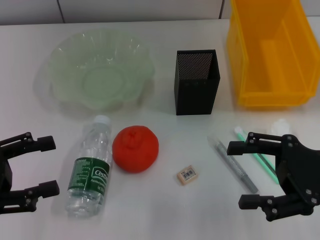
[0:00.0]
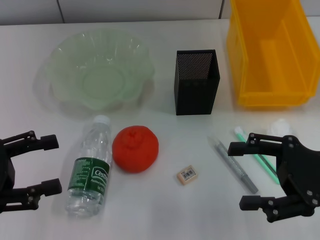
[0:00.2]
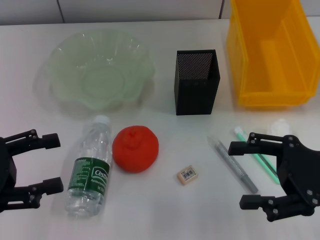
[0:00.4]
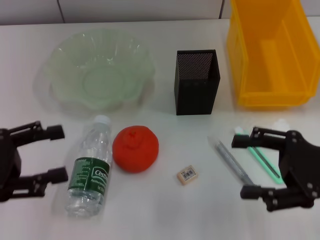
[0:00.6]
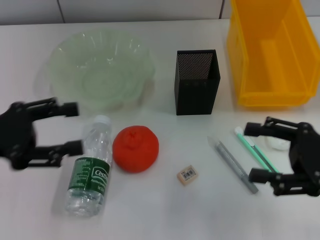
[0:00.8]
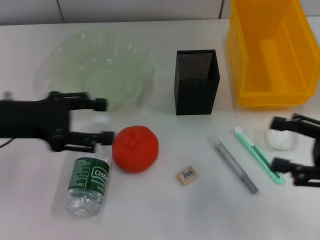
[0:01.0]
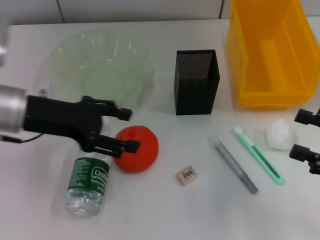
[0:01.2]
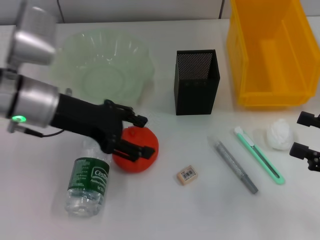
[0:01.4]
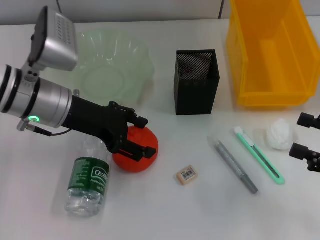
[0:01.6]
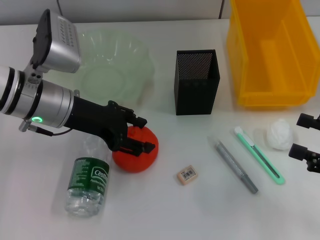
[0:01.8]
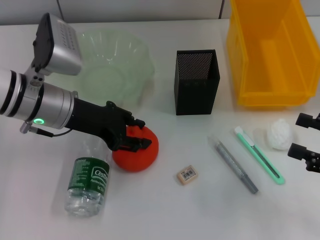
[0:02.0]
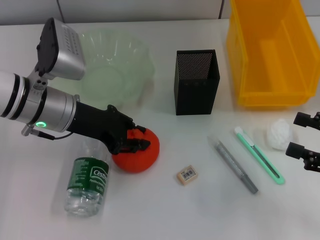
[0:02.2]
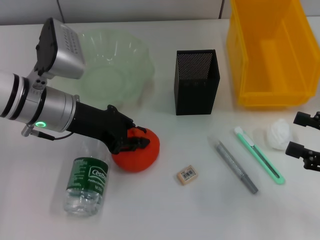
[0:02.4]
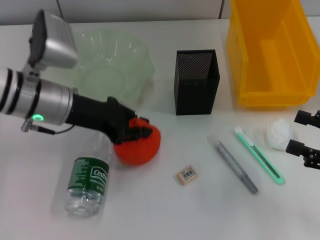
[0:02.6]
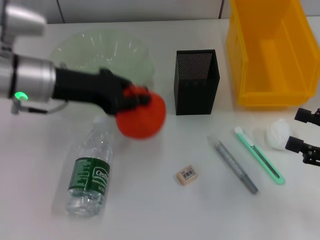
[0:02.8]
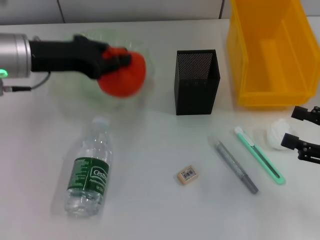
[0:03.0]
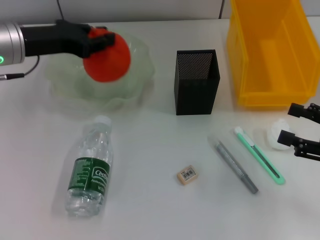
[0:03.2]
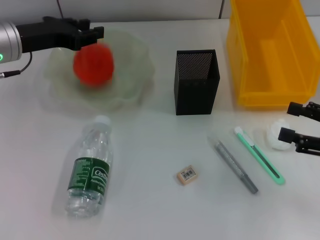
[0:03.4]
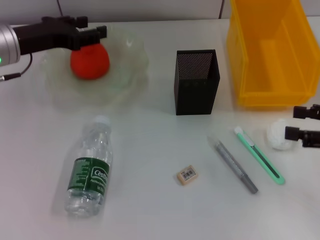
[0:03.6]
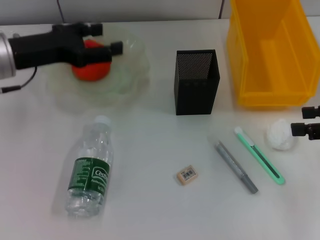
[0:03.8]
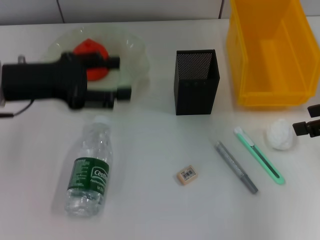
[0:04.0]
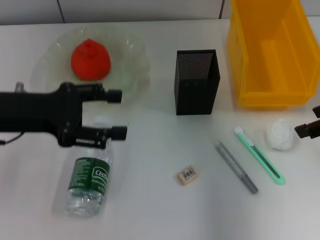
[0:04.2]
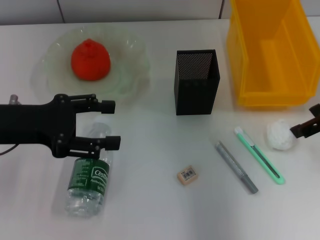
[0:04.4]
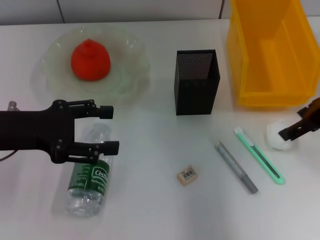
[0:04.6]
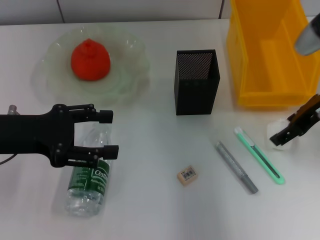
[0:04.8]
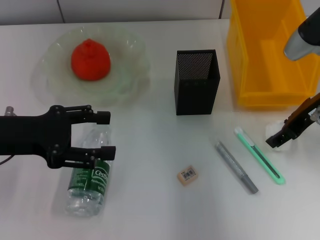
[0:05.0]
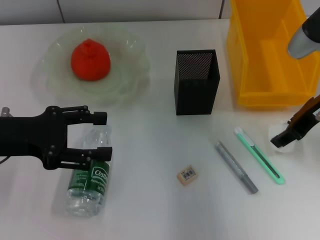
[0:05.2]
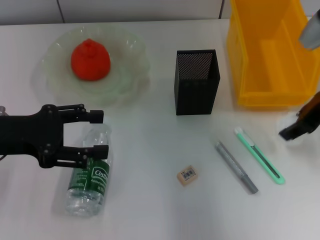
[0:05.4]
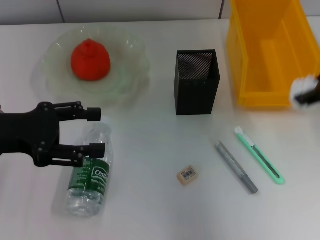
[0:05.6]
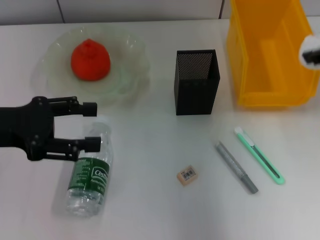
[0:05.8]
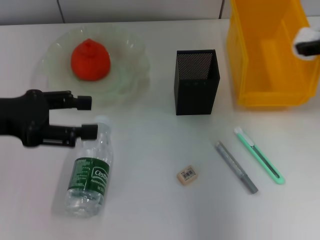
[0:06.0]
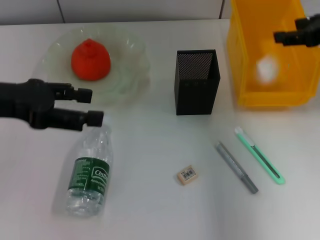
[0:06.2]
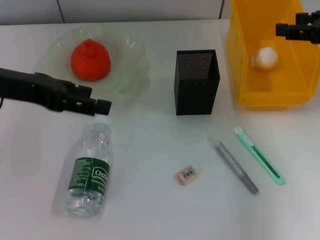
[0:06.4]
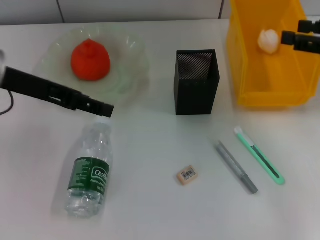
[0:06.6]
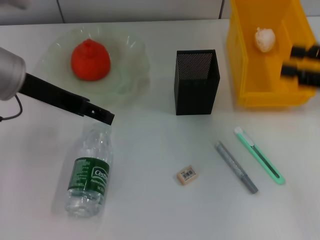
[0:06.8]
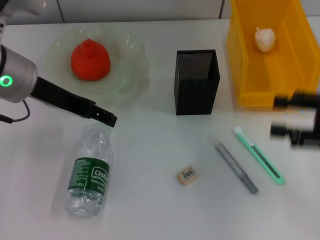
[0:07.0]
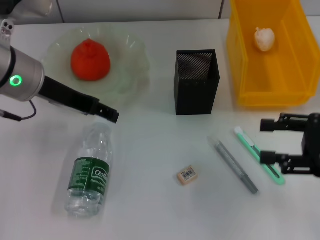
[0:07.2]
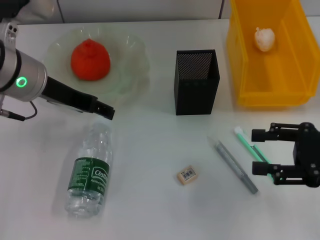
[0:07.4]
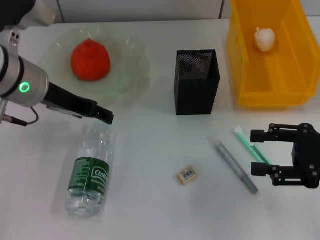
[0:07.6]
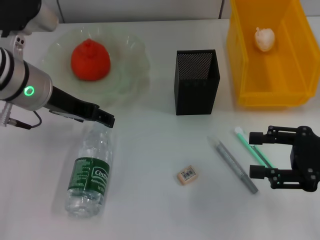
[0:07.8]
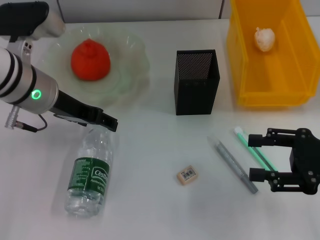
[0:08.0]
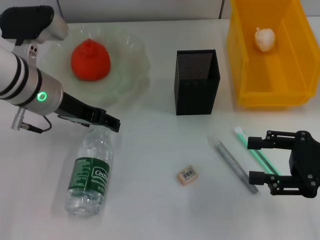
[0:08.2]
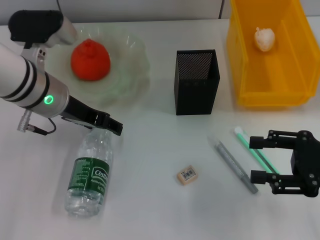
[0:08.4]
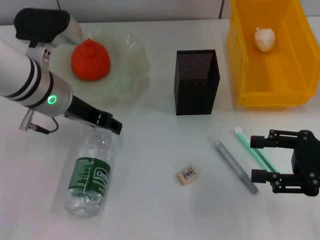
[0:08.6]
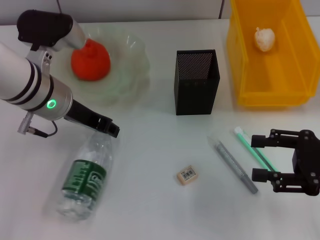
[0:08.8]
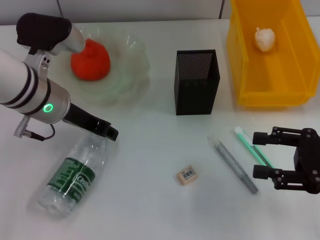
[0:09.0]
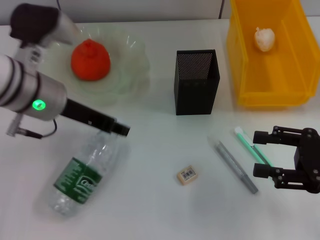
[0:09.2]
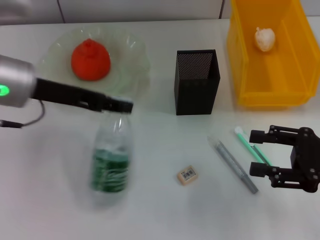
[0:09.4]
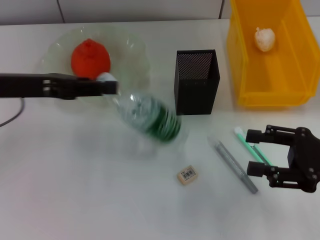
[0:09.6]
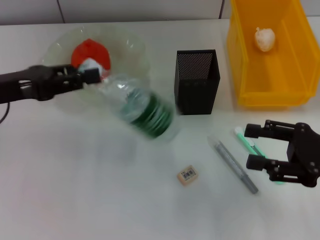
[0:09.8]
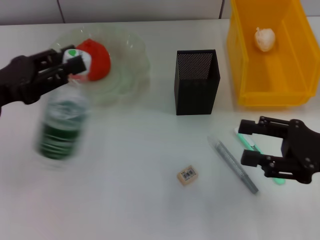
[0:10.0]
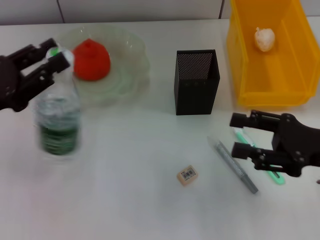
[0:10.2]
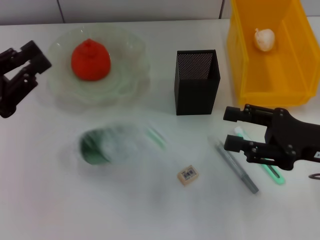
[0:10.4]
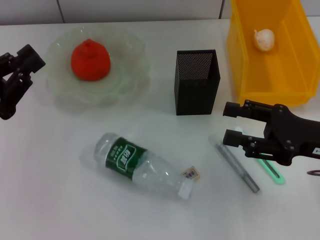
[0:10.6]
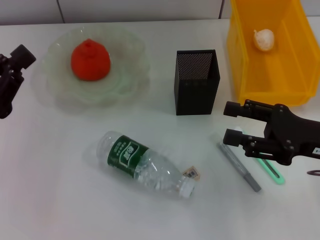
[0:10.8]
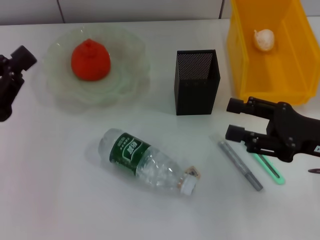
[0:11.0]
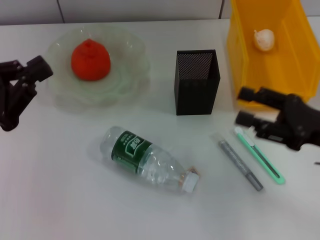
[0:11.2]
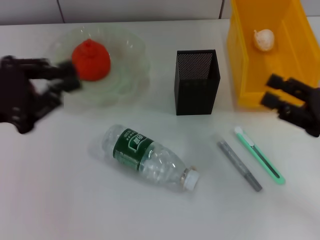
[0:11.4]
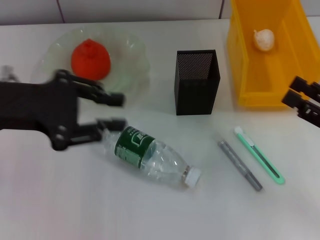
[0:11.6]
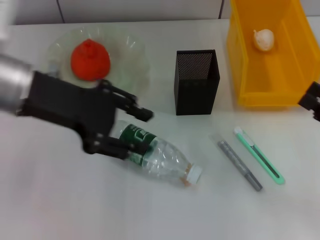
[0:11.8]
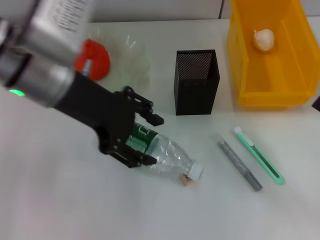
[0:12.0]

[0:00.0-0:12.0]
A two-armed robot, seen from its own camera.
Step, 0:00.0 to 0:02.2: Grab the orange with the left hand.
Step, 0:02.6 to 0:03.6: Place the orange into the fruit bowl with the left hand.
Step, 0:03.8 to 0:04.8: Grab the paper ball with the right hand.
Step, 0:05.0 to 0:06.2: Place the paper ball into the trash can with the right hand.
0:00.0 to 0:01.6: The left gripper heads to the right and forward, covering about 20 cm; the right gripper travels to the right by about 10 cm.
0:01.6 to 0:03.0: The left gripper goes approximately 5 cm to the left, and closes.
0:03.0 to 0:04.4: The left gripper moves backward, approximately 10 cm, and opens. Meanwhile the right gripper heads upward, forward and to the left, covering some 15 cm.
0:04.4 to 0:06.0: The right gripper goes upward and returns, approximately 5 cm each way, and closes up.
0:06.0 to 0:07.6: The right gripper shifts roughly 15 cm downward and backward, while the left gripper goes roughly 10 cm to the right and forward.
0:07.6 to 0:09.0: The left gripper closes up.
0:09.0 to 0:10.4: The left gripper is displaced to the left and backward by roughly 15 cm.
0:10.4 to 0:12.0: The left gripper travels to the right, upward and forward by about 20 cm, and opens its fingers. The right gripper shifts about 10 cm to the right and backward.

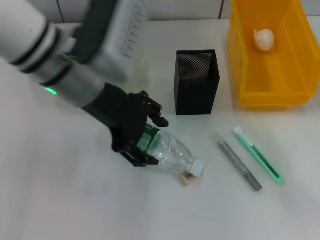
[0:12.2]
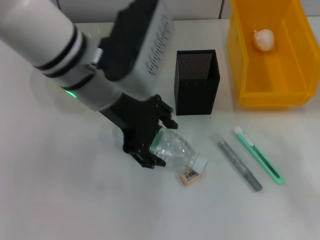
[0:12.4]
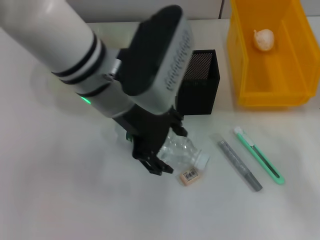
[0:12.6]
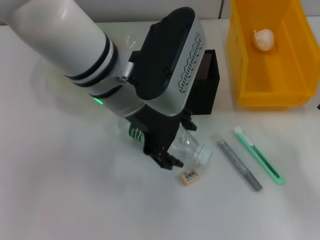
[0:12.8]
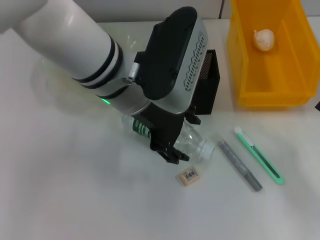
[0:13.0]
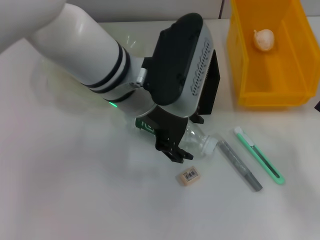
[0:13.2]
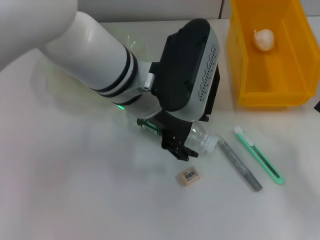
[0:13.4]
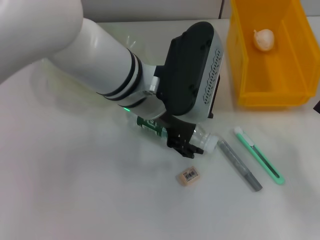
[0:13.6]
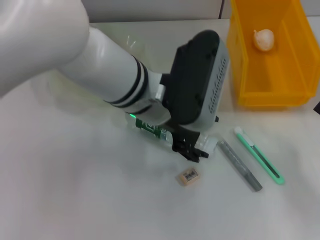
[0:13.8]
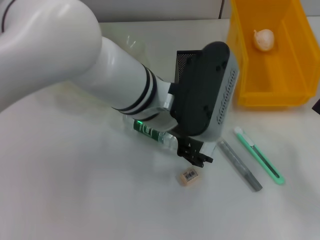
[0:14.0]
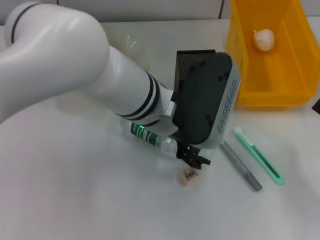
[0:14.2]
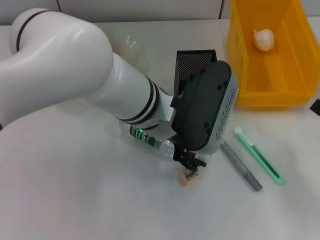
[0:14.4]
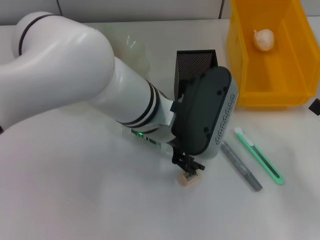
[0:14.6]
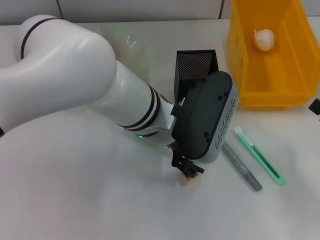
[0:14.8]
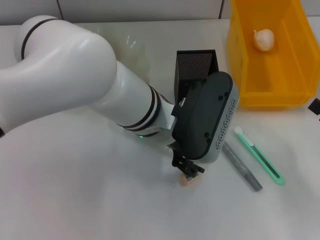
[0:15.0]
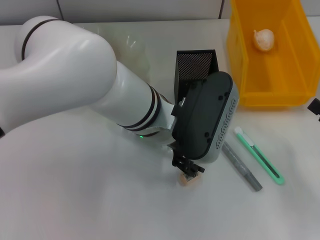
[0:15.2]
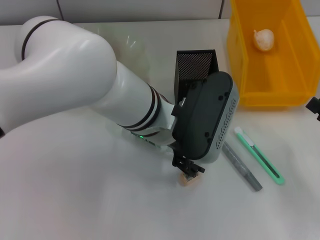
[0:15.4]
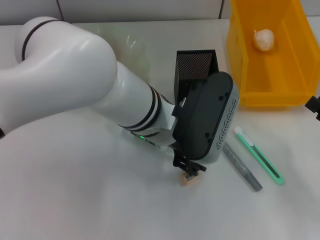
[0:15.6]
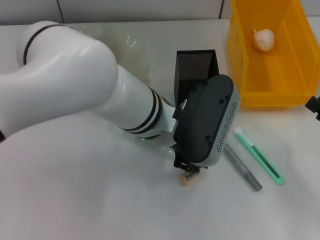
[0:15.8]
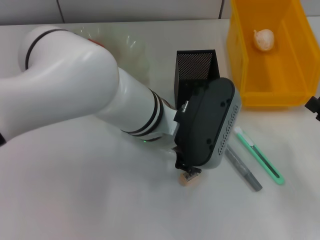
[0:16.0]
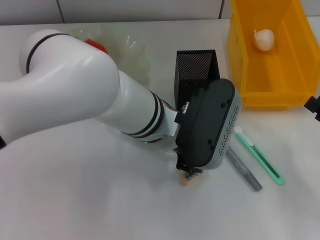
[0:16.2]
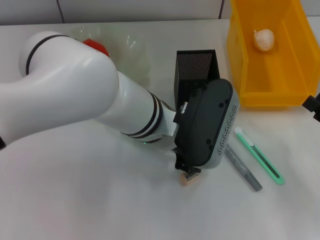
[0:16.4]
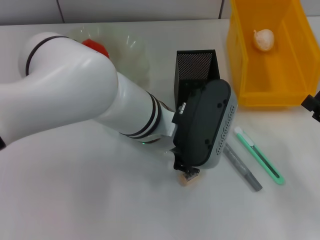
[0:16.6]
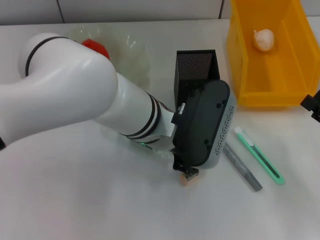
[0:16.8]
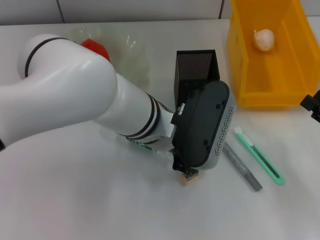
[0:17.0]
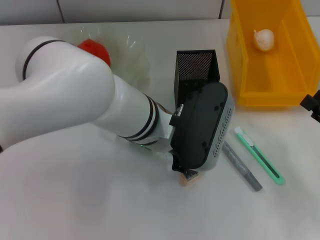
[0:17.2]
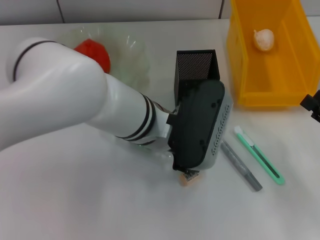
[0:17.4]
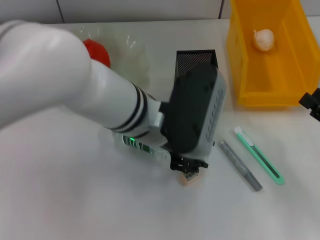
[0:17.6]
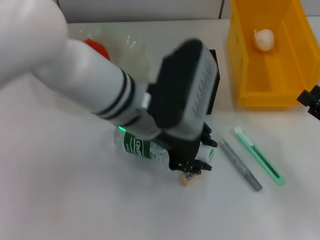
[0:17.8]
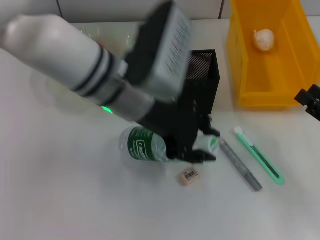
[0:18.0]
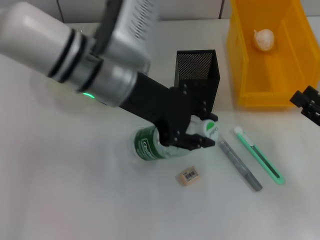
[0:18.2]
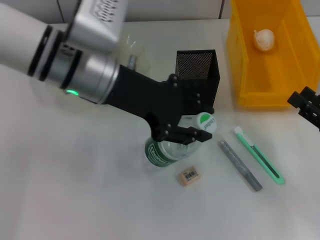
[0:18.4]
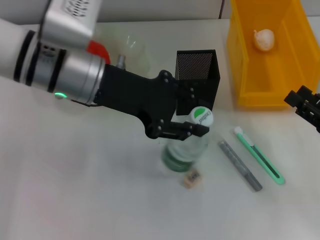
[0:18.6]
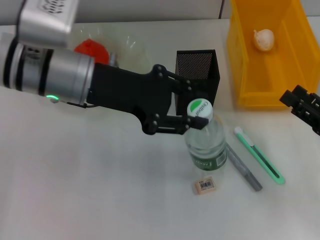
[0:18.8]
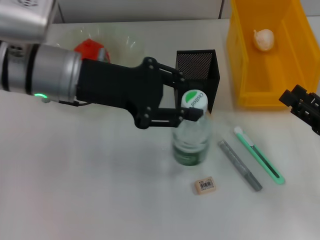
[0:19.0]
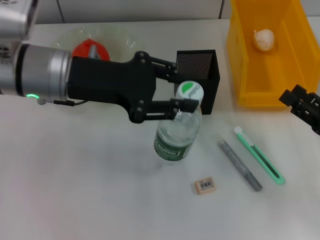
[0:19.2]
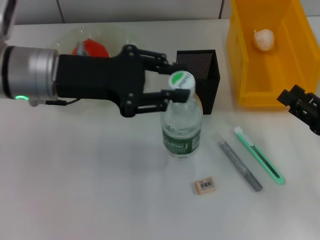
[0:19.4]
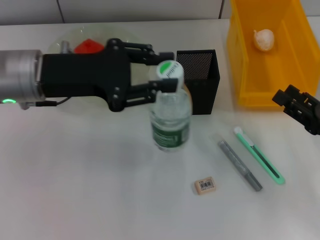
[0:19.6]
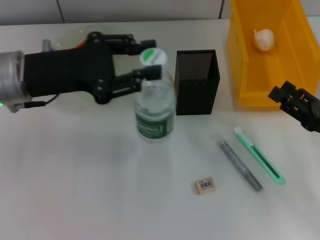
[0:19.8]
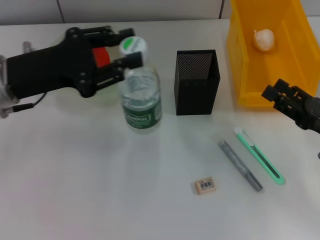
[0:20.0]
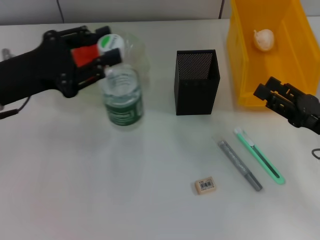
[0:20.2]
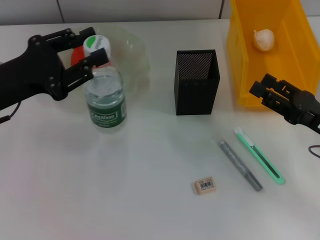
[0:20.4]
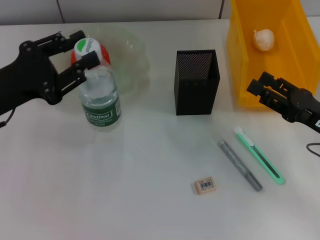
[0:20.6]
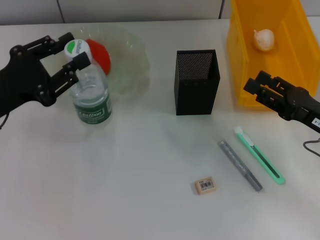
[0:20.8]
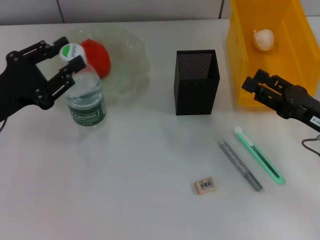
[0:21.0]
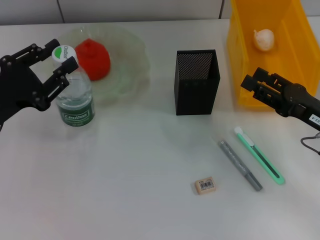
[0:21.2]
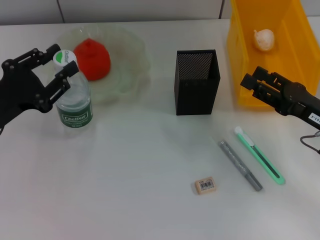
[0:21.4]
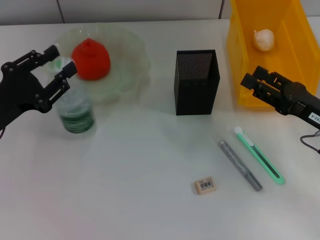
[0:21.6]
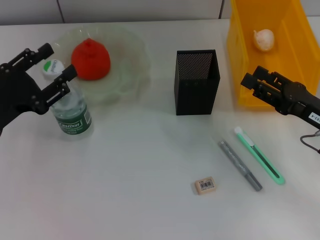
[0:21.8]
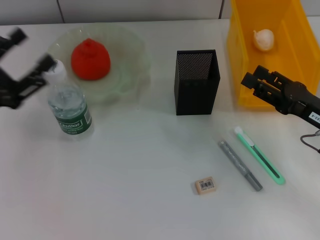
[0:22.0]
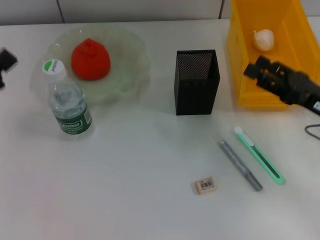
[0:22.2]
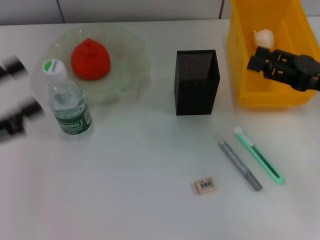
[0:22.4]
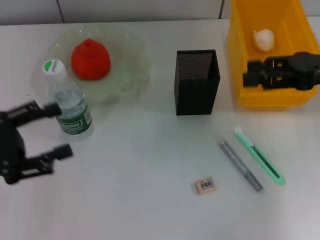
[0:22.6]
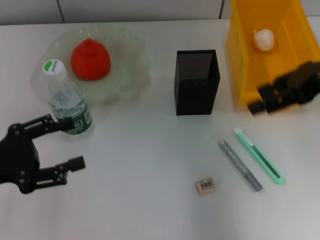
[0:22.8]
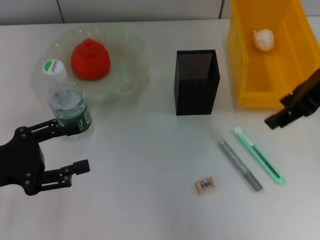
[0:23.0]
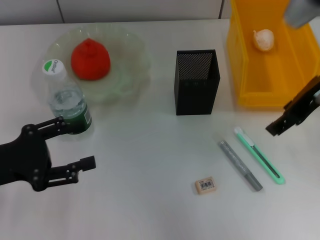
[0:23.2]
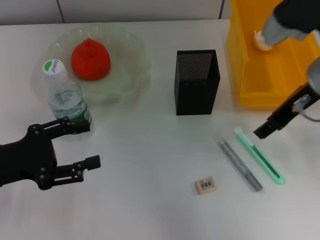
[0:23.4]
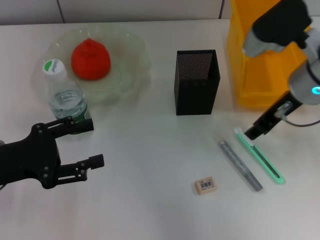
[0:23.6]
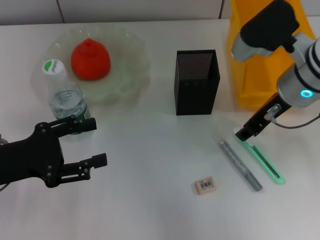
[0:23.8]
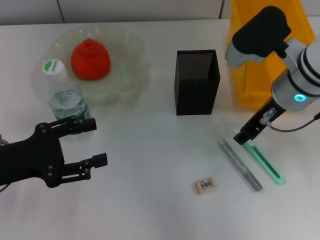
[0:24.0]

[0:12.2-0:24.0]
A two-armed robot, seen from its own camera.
Step, 0:12.2 to 0:15.6: Grab the water bottle with the left hand.
Step, 0:16.0 to 0:21.6: Place the water bottle on the table with the left hand.
0:12.2 to 0:13.6: The left gripper travels to the right by approximately 5 cm.
0:15.2 to 0:16.6: The left gripper closes its fingers.
0:16.6 to 0:18.2: The left gripper travels to the left and upward by approximately 10 cm.
0:18.2 to 0:19.6: The left gripper moves to the left, approximately 10 cm.
0:19.6 to 0:21.0: The left gripper shifts about 10 cm to the left, downward and backward.
0:21.0 to 0:22.6: The left gripper travels backward by approximately 5 cm, and opens its fingers; the right gripper moves upward and forward, roughly 15 cm.
0:22.6 to 0:24.0: The right gripper shifts approximately 10 cm to the left.
